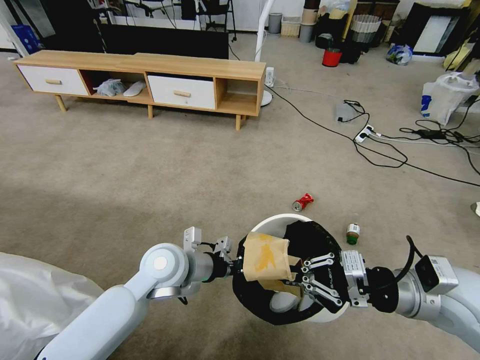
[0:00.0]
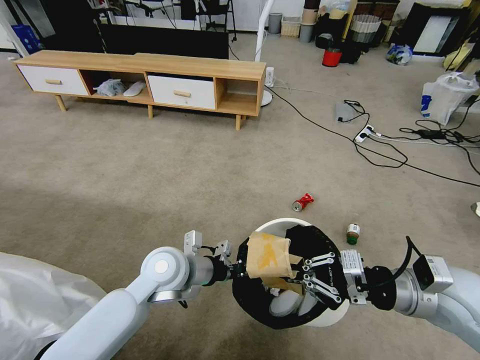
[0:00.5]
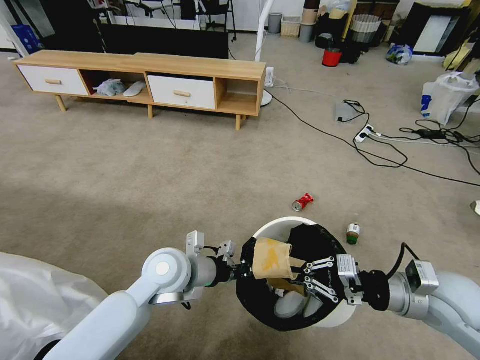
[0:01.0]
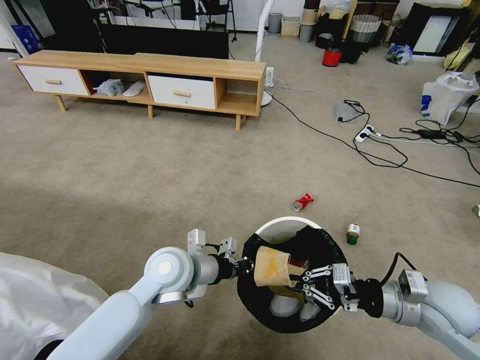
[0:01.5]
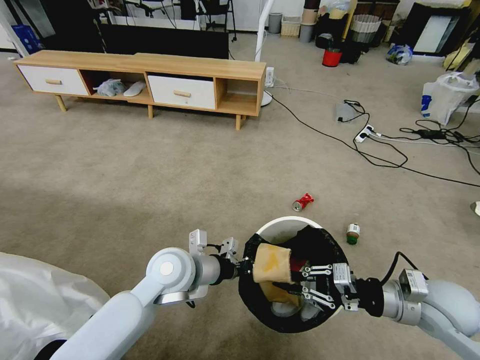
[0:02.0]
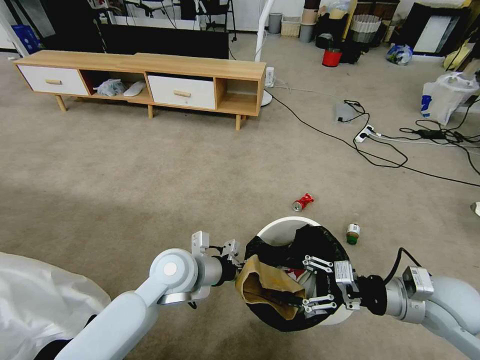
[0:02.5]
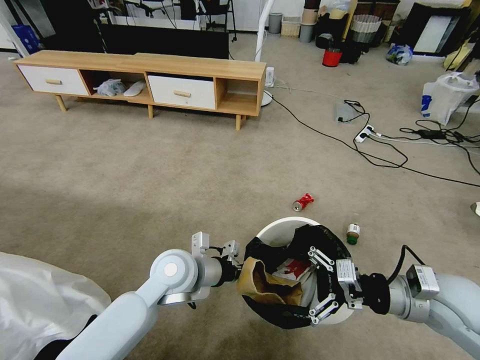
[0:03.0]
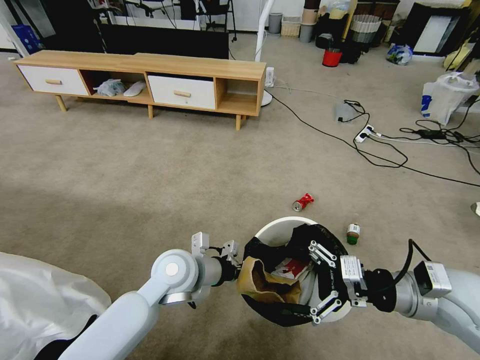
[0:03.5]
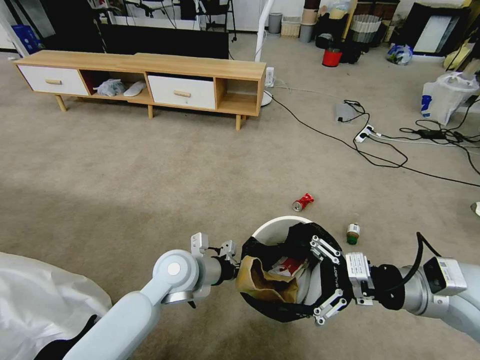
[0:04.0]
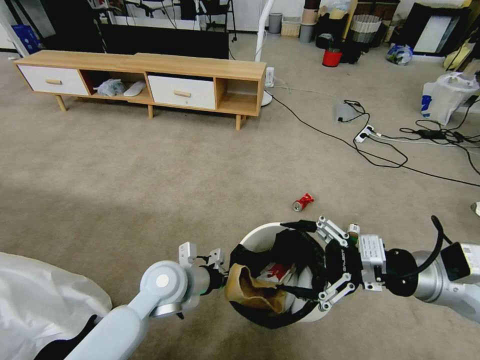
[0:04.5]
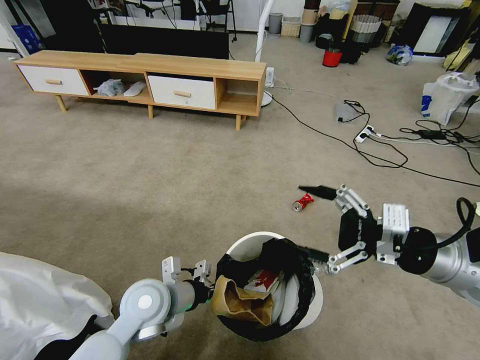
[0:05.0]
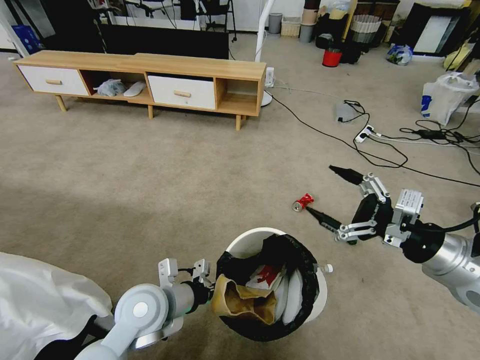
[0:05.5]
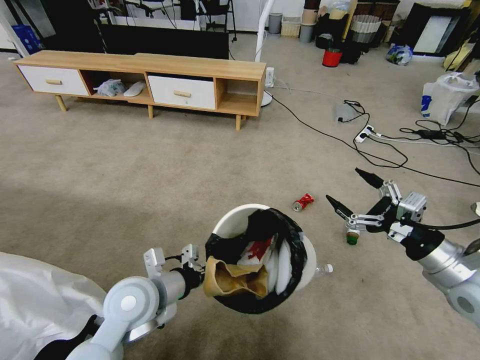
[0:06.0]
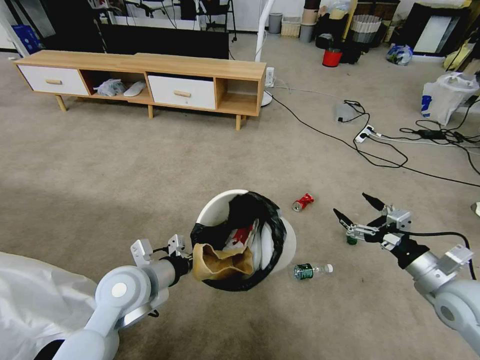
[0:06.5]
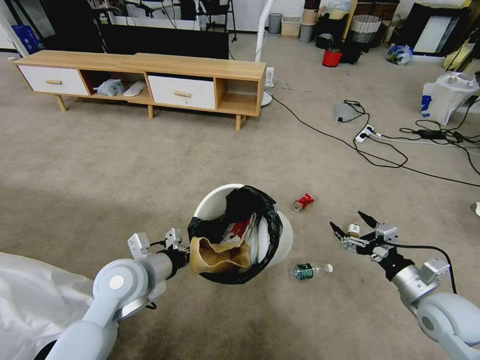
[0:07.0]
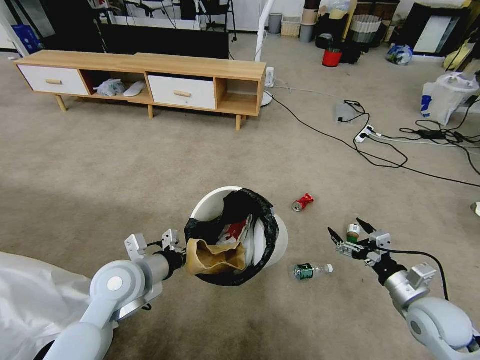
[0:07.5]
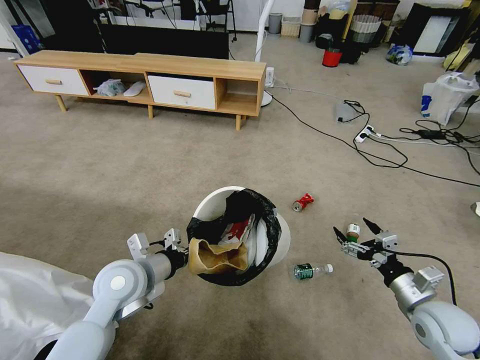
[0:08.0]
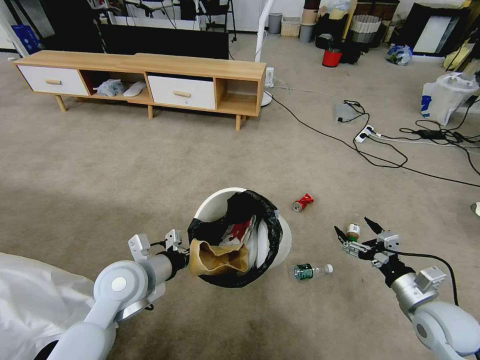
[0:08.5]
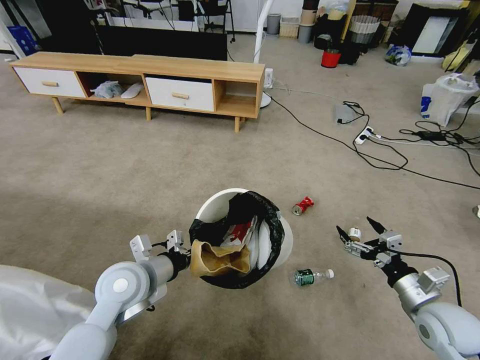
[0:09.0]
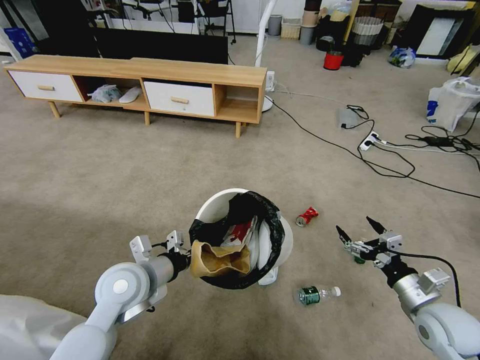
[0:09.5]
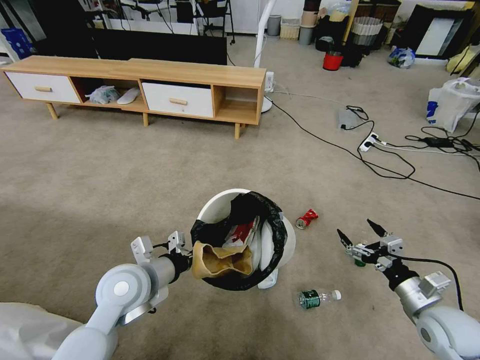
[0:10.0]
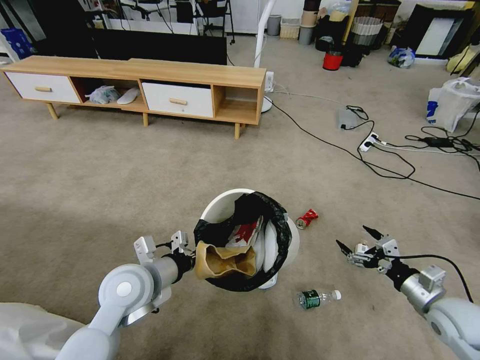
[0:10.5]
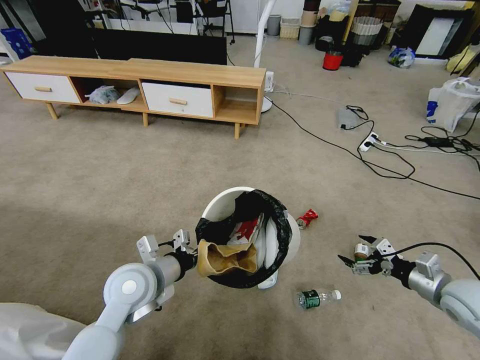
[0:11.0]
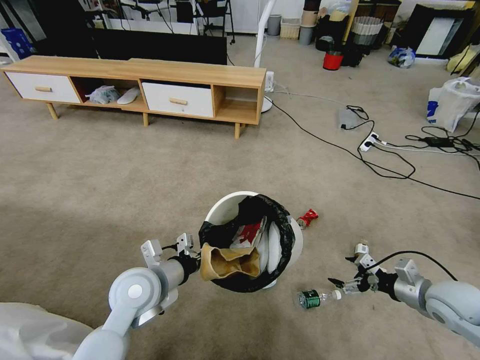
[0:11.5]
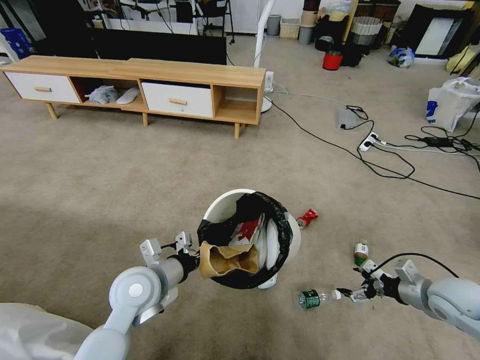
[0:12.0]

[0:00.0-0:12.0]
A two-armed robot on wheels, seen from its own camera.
Task of the whole recording: Pick up the trash bin and place the garbage on the floor into it.
0:00.0 to 0:02.0: The right gripper moves downward, about 5 cm.
0:02.0 to 0:04.0: The right gripper heads upward, covering about 5 cm, and opens.
0:04.0 to 0:06.0: The right gripper moves to the right, about 5 cm; the left gripper shifts roughly 10 cm to the left and backward.
0:06.0 to 0:08.0: The right gripper moves downward, some 15 cm.
0:10.0 to 0:12.0: The right gripper is displaced forward and to the right by approximately 10 cm.

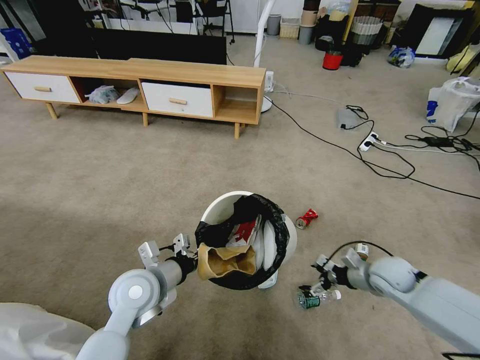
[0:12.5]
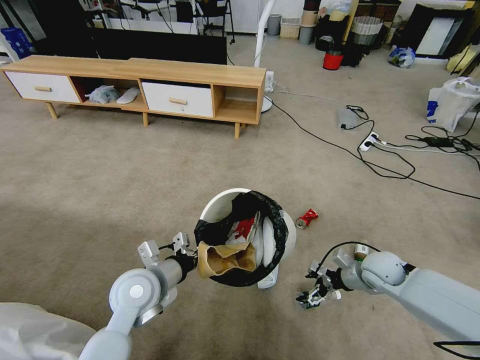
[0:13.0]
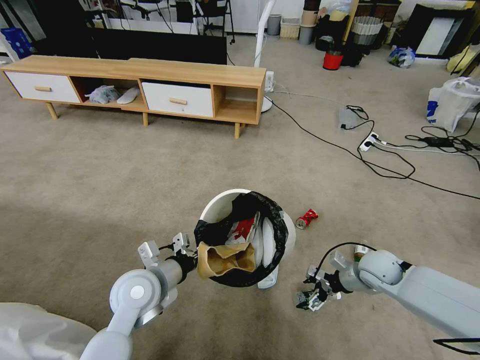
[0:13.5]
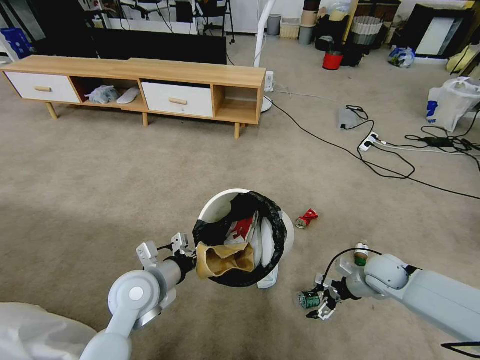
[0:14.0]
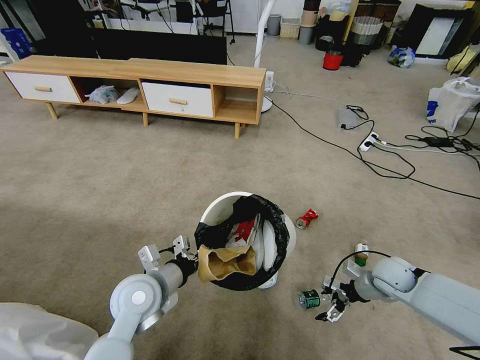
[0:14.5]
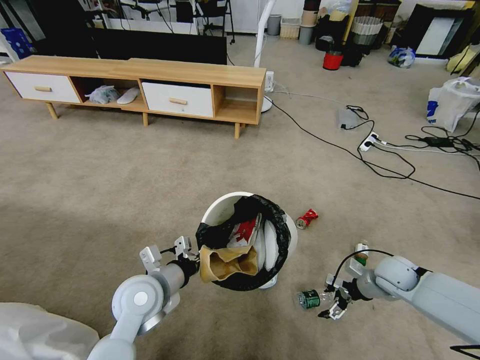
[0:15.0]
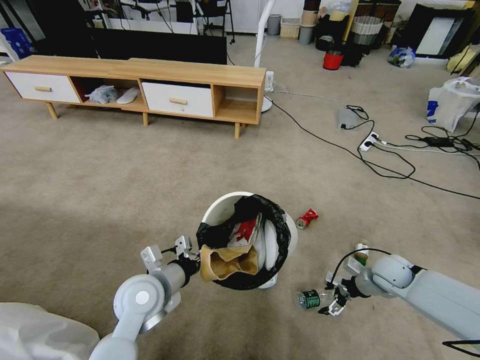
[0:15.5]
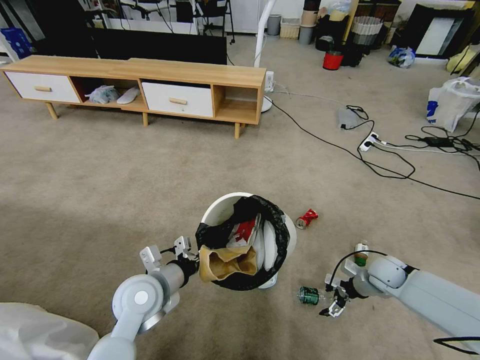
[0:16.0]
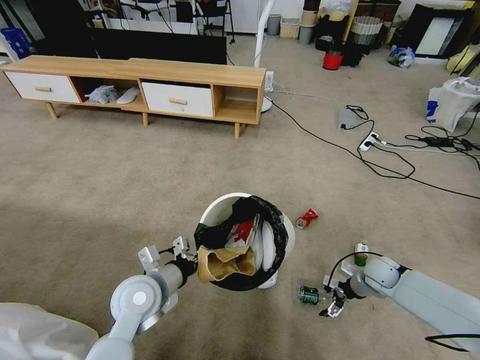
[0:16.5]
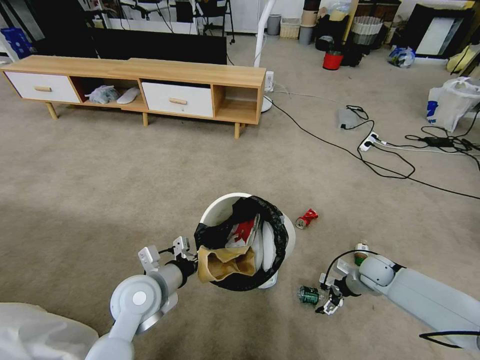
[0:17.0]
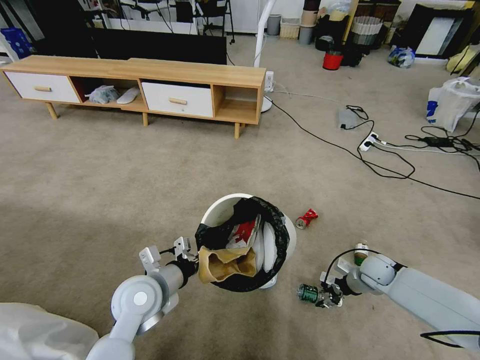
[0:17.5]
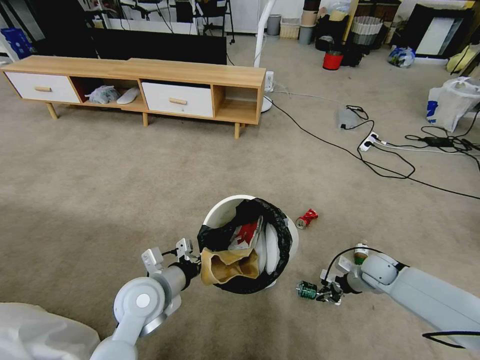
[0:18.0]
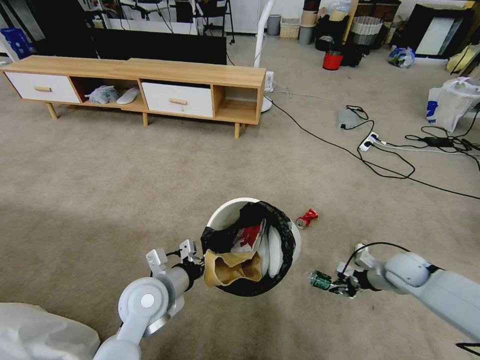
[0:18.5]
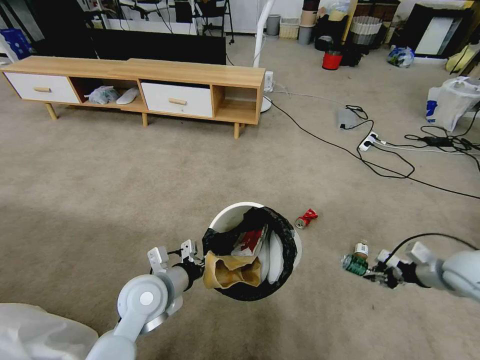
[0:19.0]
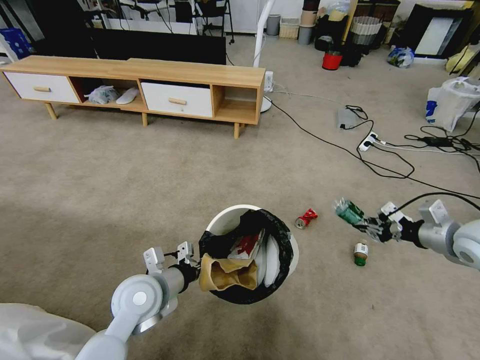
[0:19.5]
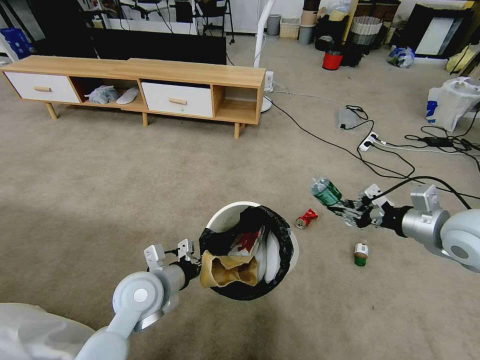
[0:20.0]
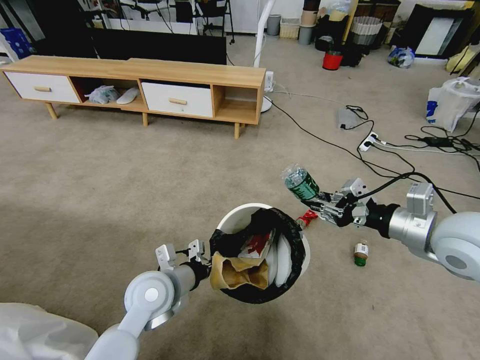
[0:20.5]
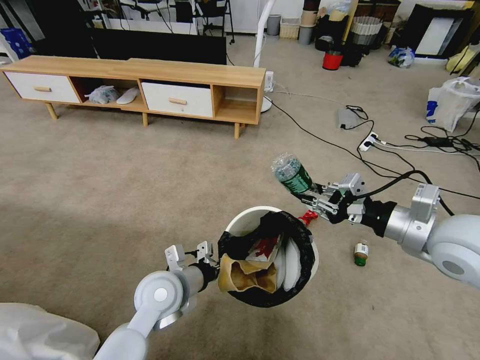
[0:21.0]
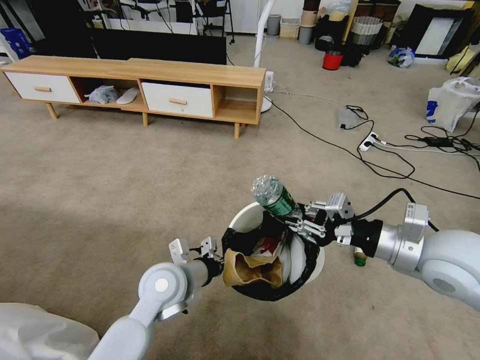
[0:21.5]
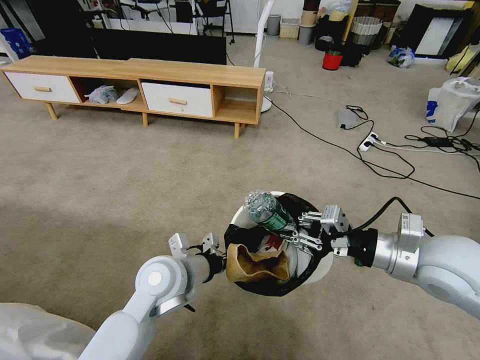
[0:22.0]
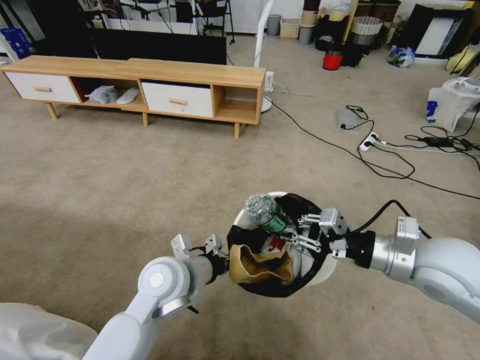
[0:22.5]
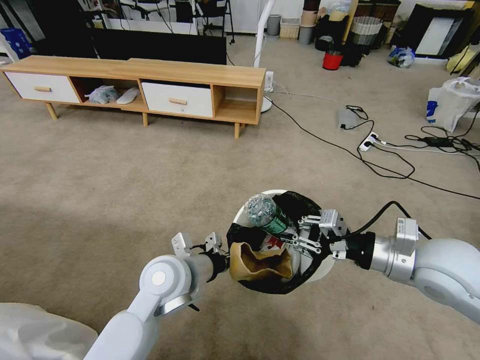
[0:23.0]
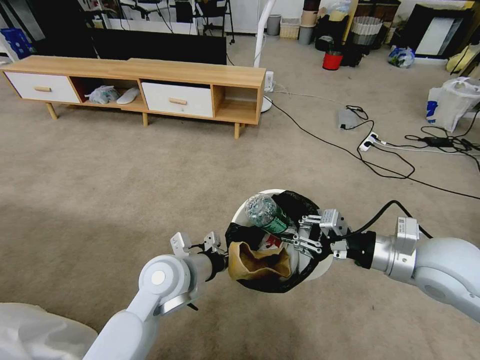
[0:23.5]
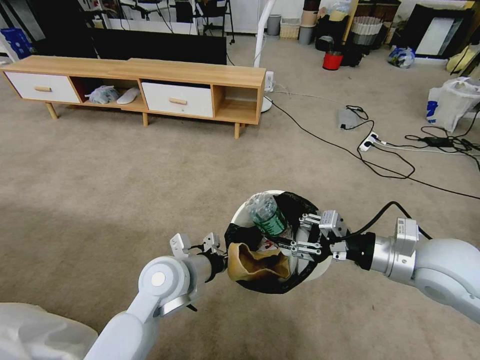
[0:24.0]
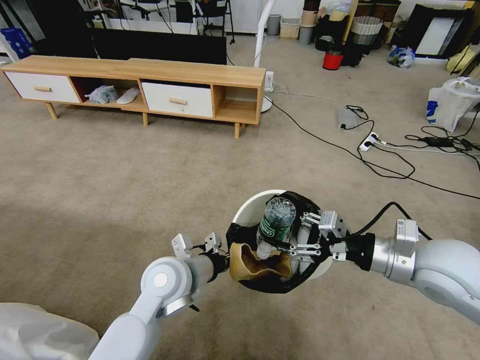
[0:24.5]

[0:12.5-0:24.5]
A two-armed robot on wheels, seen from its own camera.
Task of the whole recording: Pick up the trash bin and place the garbage on the floor into it.
0:12.5 to 0:14.5: The grippers make only small movements.
0:14.5 to 0:16.5: The right gripper travels downward by about 5 cm.
0:16.5 to 0:18.5: The right gripper moves upward, about 5 cm, and closes.
0:18.5 to 0:20.5: The right gripper heads upward, covering about 25 cm.
0:20.5 to 0:22.5: The right gripper moves about 5 cm, while the left gripper shifts by approximately 5 cm.
0:22.5 to 0:24.5: The right gripper opens.

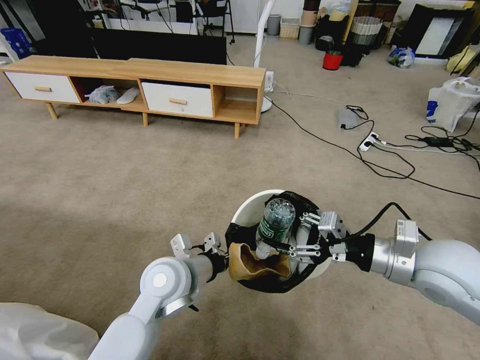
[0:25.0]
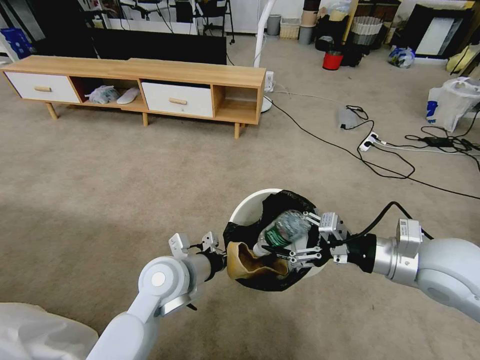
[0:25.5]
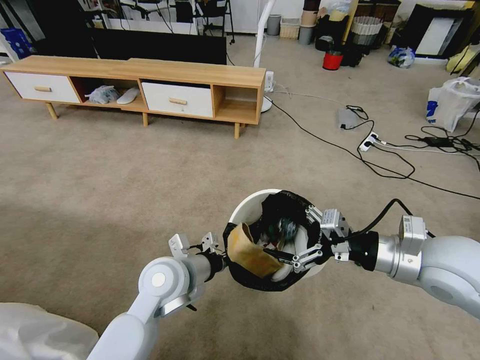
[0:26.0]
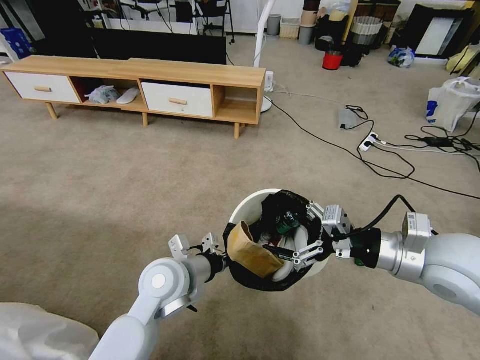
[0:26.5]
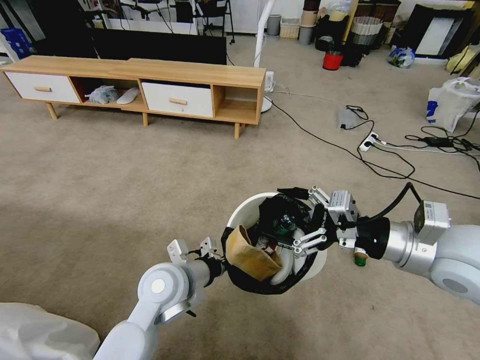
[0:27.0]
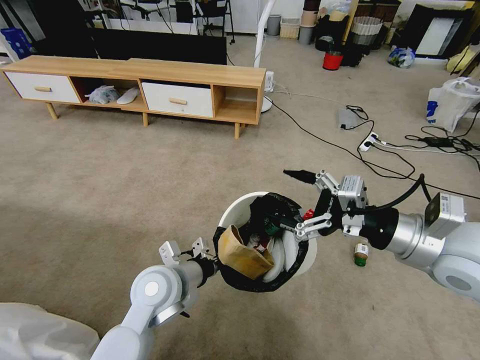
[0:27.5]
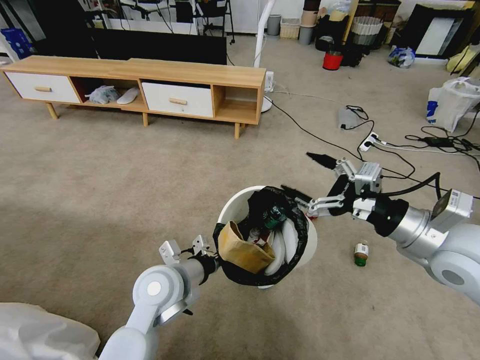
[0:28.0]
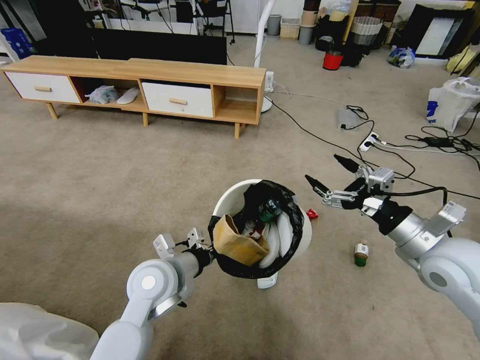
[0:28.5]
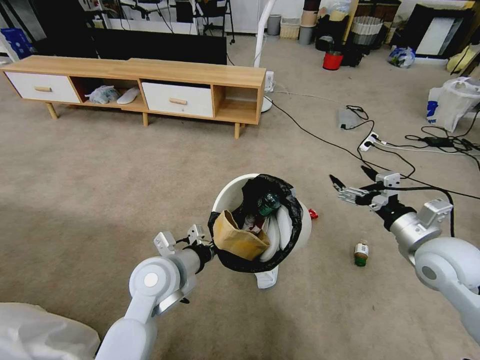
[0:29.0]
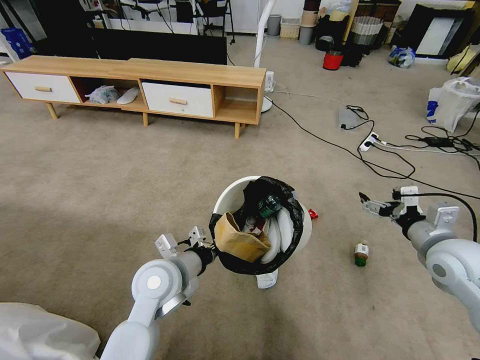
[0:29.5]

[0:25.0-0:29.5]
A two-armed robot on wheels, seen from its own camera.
Task of the whole recording: Pick up the trash bin and place the garbage on the floor into it.
0:25.0 to 0:27.0: The grippers move only a little.
0:27.0 to 0:29.5: The right gripper is displaced downward and to the right by some 15 cm.